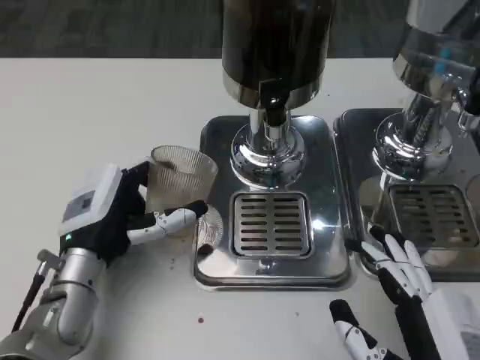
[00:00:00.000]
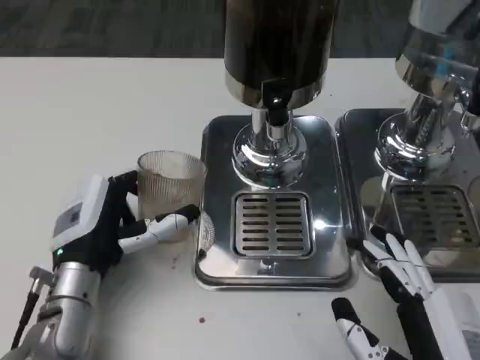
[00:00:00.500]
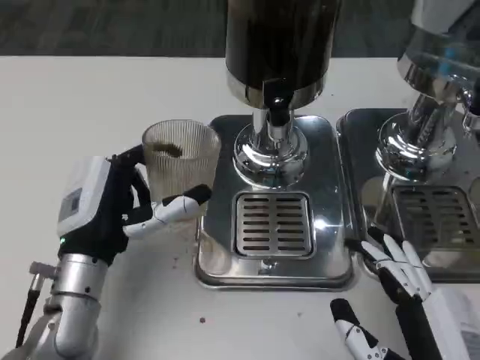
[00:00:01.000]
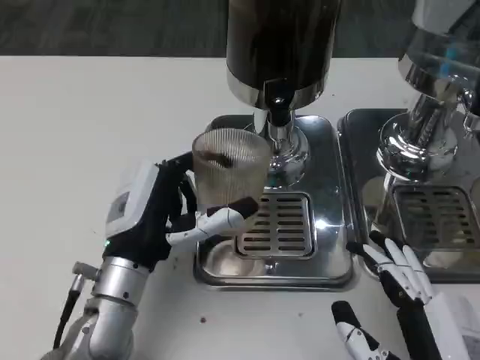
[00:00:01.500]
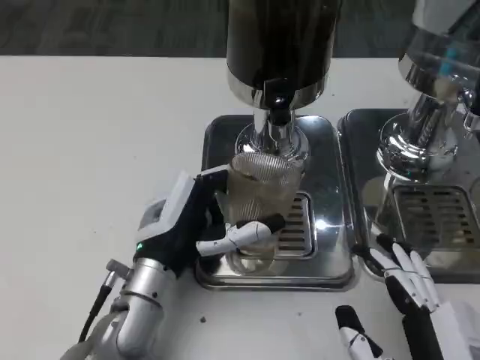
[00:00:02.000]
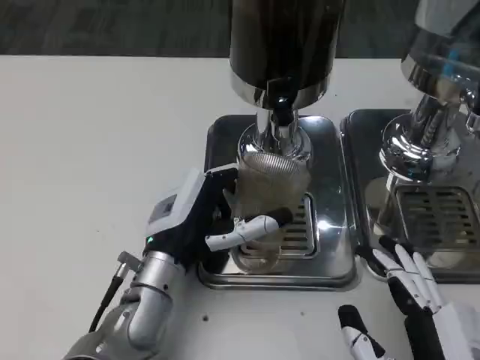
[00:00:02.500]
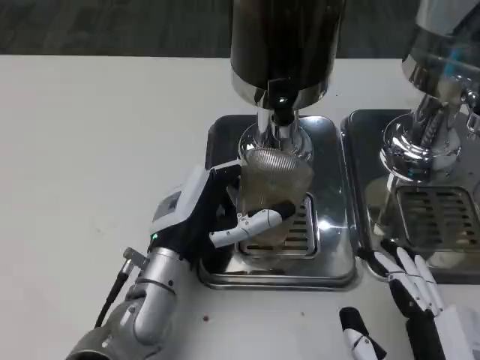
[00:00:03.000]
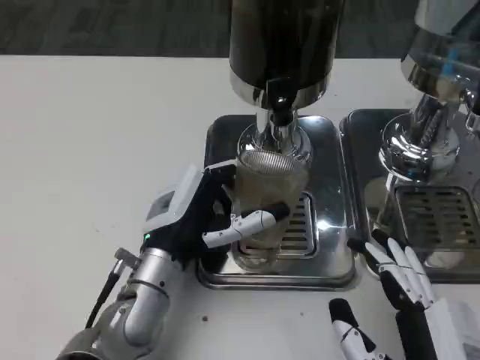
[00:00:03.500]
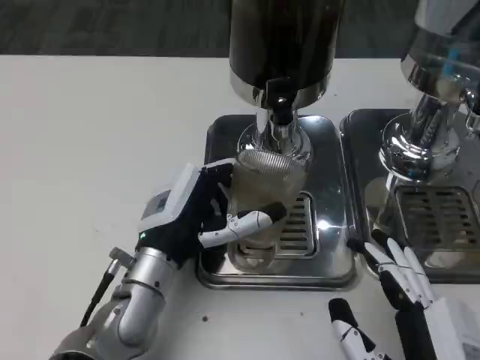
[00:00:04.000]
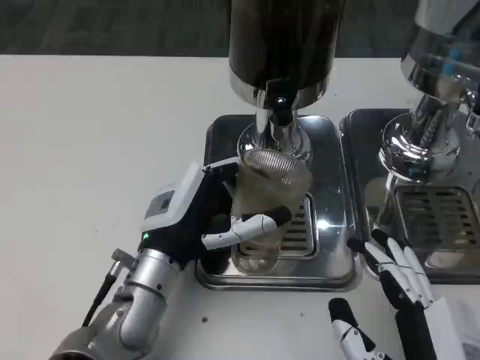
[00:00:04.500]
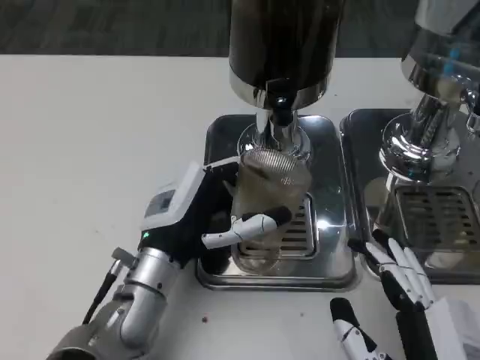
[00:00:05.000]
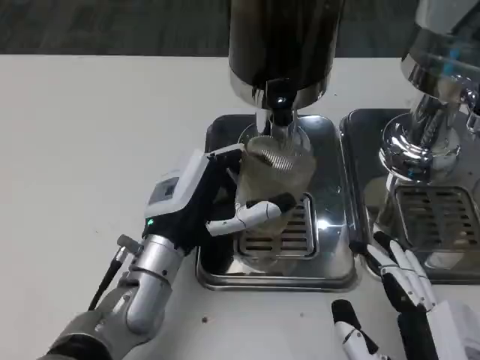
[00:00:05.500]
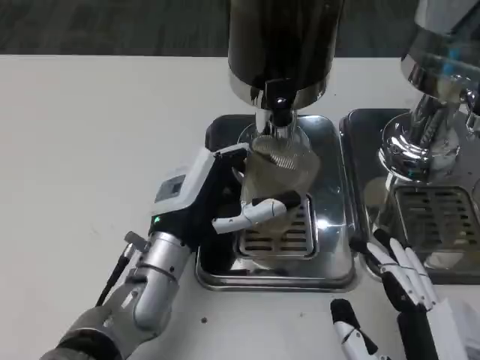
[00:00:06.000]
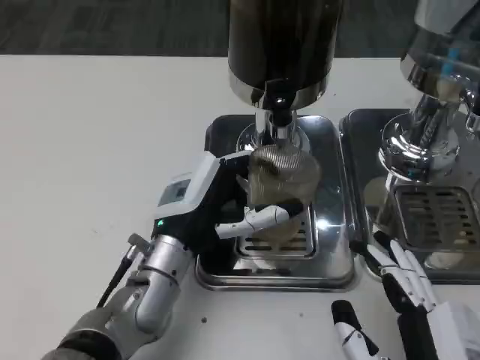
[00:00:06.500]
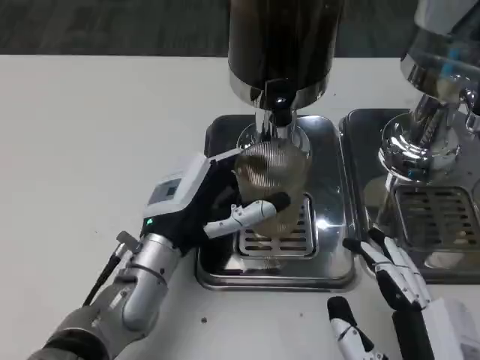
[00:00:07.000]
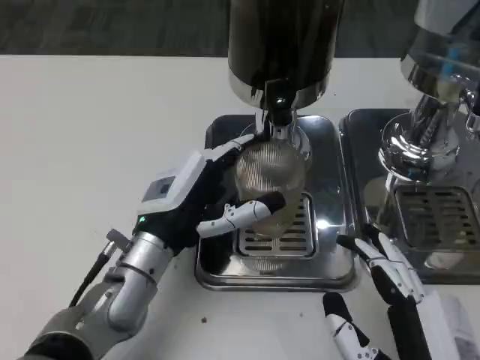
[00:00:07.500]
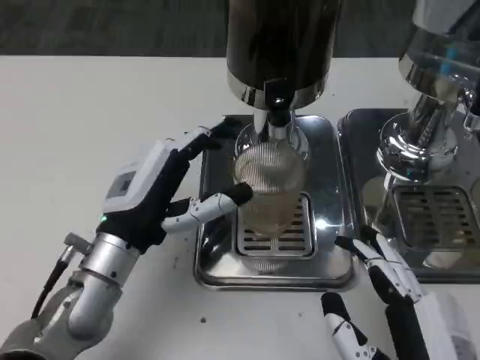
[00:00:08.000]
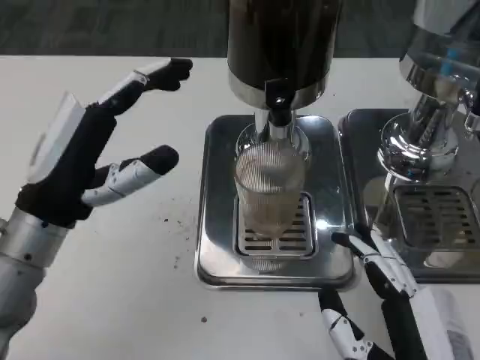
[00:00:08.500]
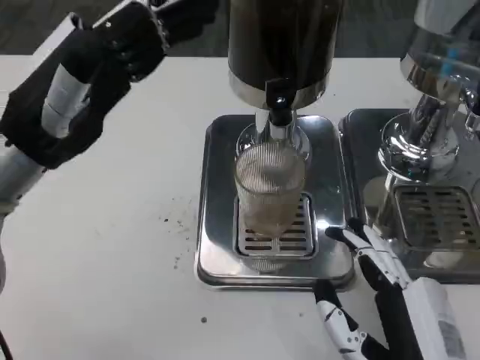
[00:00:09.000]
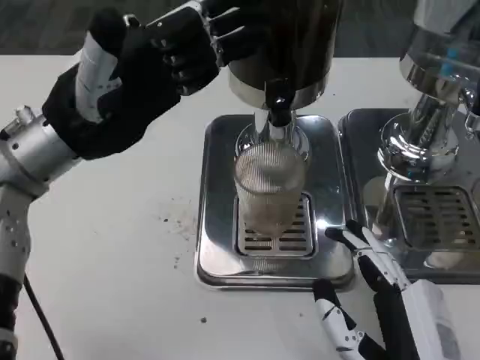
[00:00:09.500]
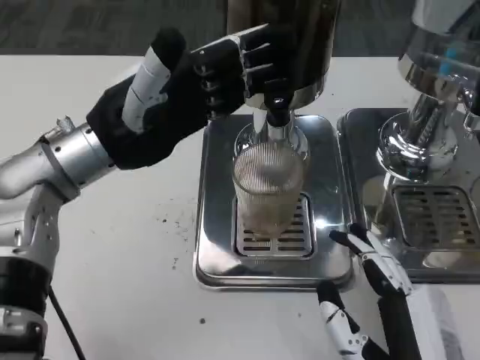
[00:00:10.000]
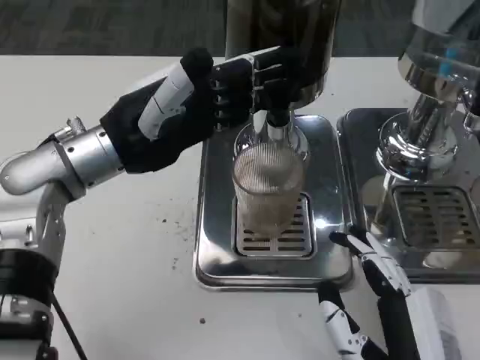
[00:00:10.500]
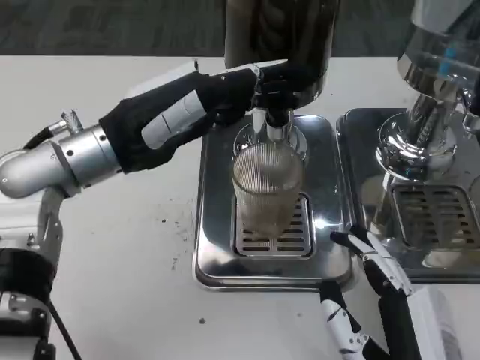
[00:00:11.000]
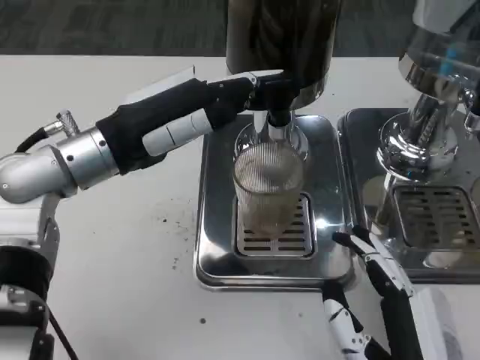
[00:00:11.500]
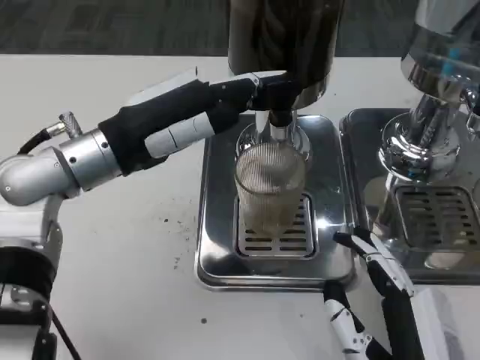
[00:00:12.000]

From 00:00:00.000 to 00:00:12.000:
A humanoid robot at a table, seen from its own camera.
Task of the whole recording: Grasp the cup under the faucet to collect the drink, then remove the cup.
From 00:00:00.000 to 00:00:02.000: The left hand is displaced to the right by approximately 5 cm.
From 00:00:02.000 to 00:00:06.000: The hands stay close to where they were, moving slightly.
From 00:00:06.000 to 00:00:08.000: The left hand shifts approximately 5 cm to the left.
From 00:00:08.000 to 00:00:10.000: The left hand goes some 15 cm upward and forward.

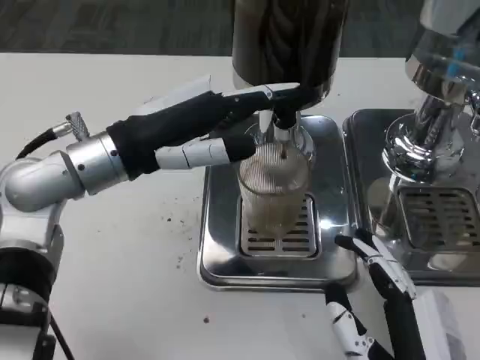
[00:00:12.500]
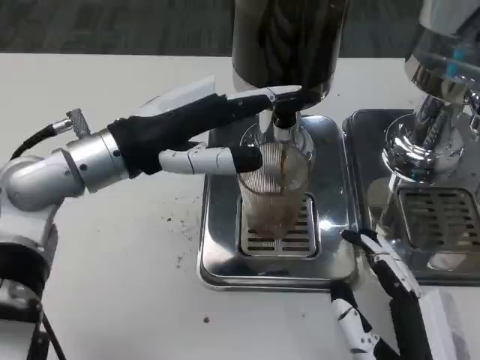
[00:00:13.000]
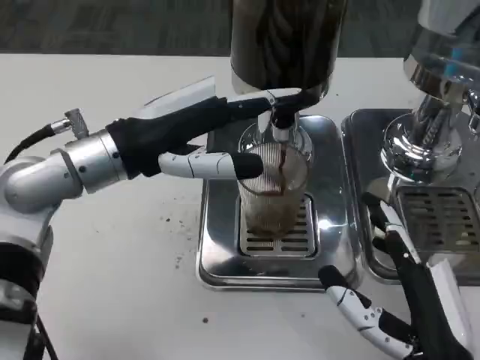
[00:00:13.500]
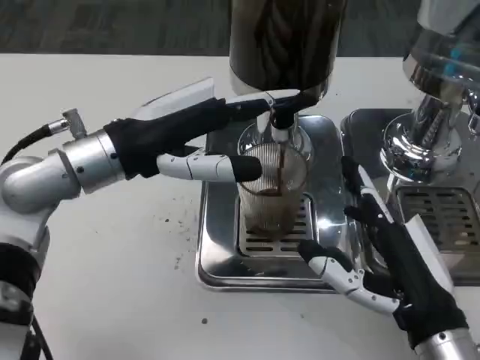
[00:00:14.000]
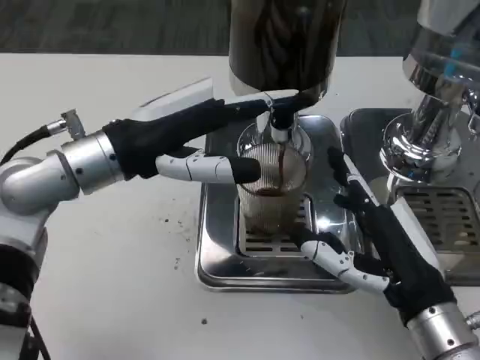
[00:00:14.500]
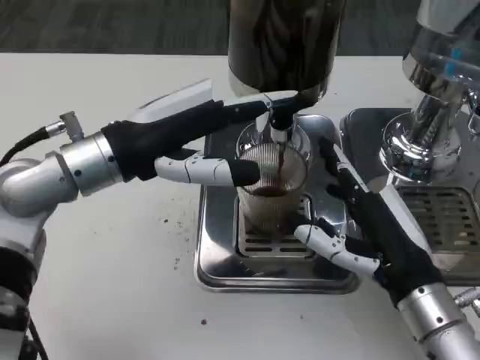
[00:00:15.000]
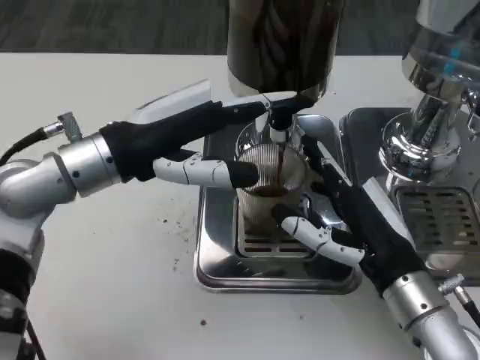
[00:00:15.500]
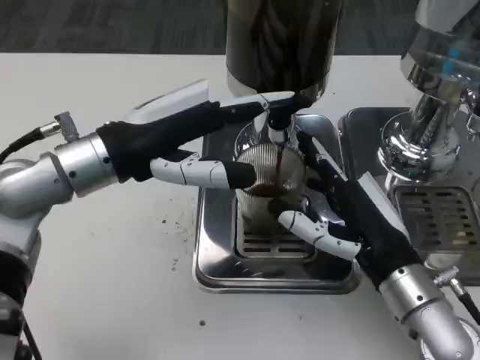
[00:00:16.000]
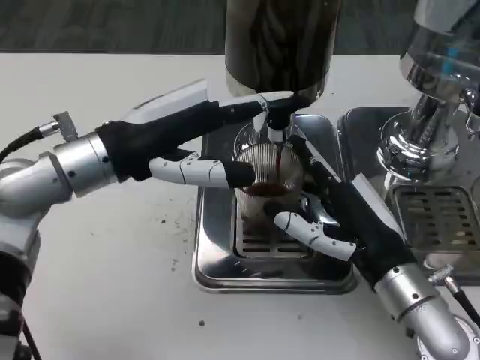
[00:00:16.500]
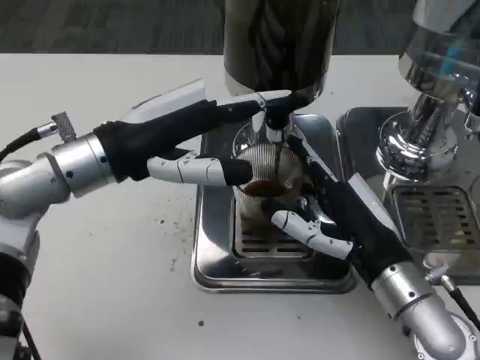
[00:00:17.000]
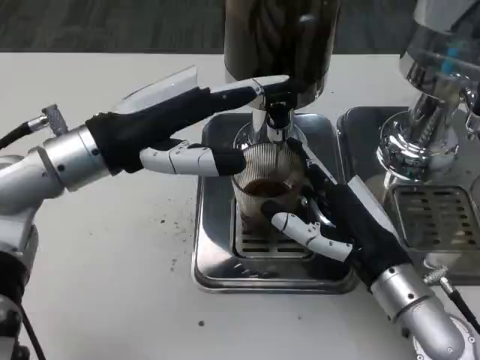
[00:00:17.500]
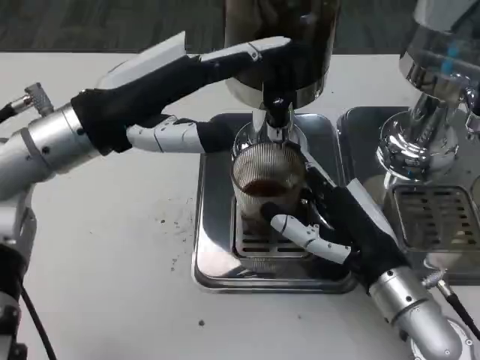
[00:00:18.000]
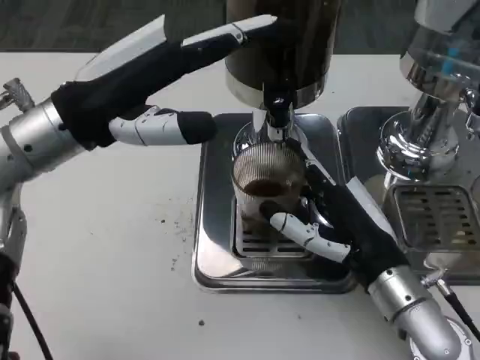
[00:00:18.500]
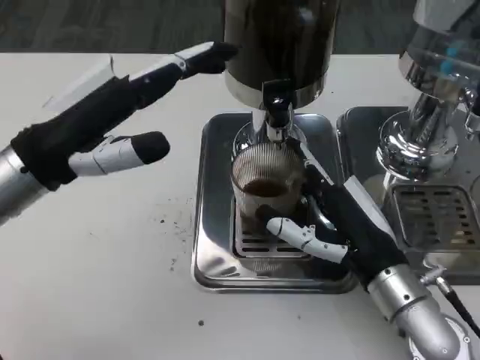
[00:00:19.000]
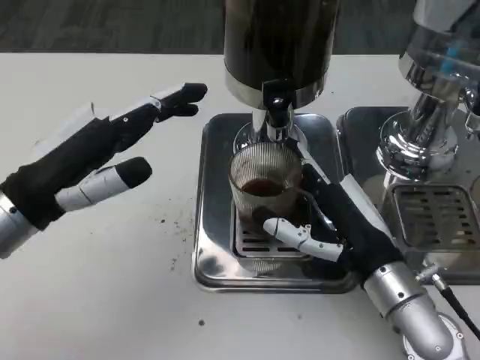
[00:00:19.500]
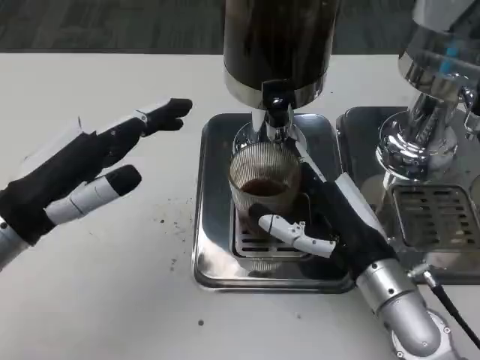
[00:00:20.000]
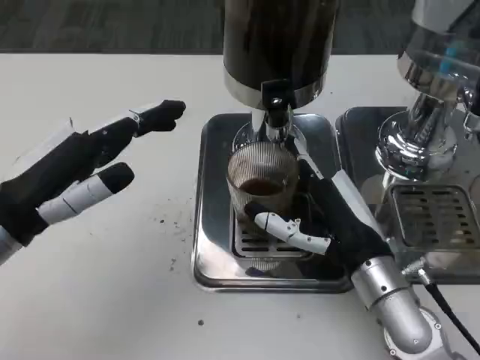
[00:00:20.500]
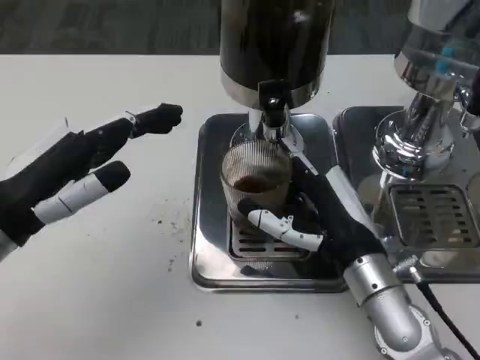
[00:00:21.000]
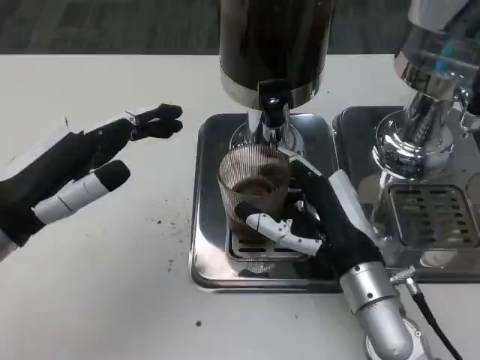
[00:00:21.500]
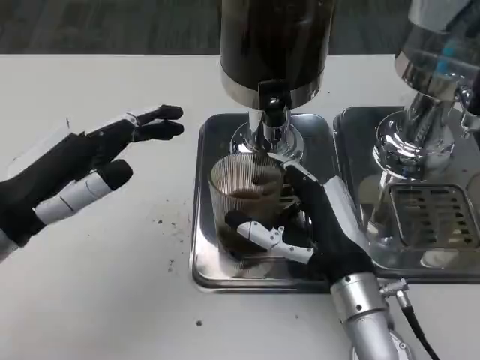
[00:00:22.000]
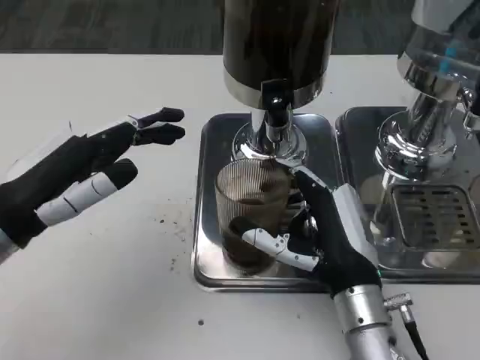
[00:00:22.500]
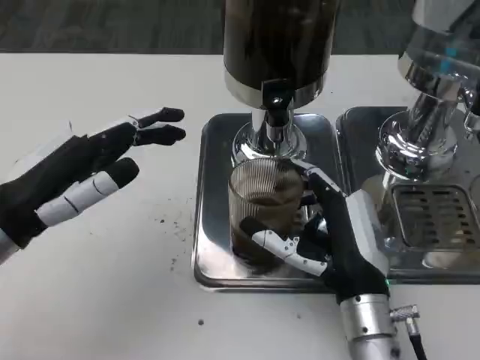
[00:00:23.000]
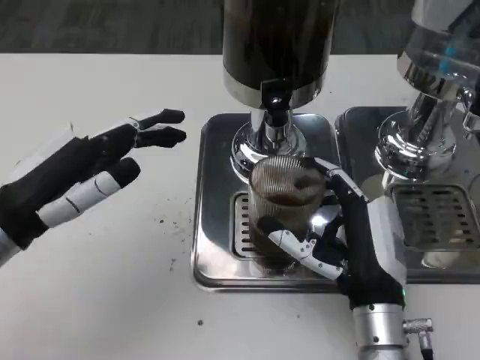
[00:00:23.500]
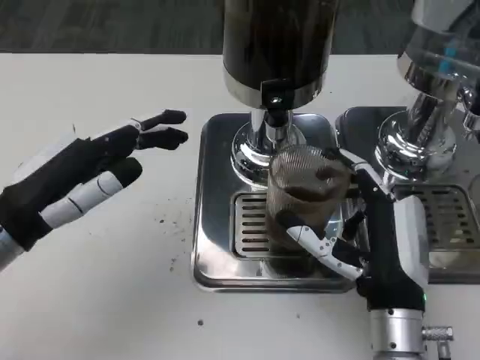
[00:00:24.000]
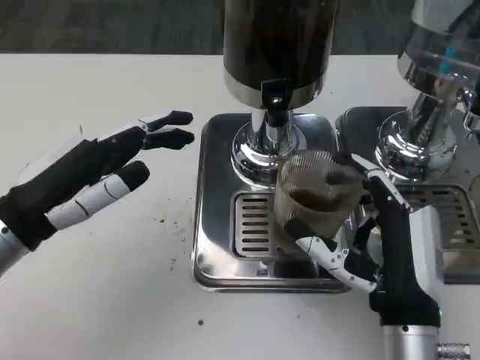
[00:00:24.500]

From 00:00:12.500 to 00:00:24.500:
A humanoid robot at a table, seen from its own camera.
Task of the whole recording: Grasp the cup under the faucet to collect the drink, then remove the cup.
From 00:00:12.500 to 00:00:14.500: The right hand moves forward, some 10 cm.
From 00:00:18.500 to 00:00:20.500: The left hand is displaced downward, backward and to the left by some 10 cm.
From 00:00:20.500 to 00:00:22.500: The hands make only small movements.
